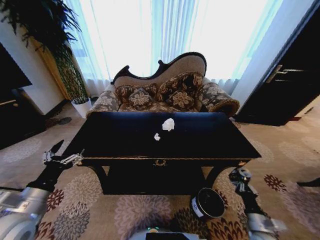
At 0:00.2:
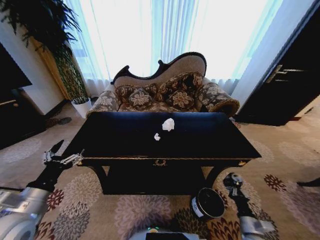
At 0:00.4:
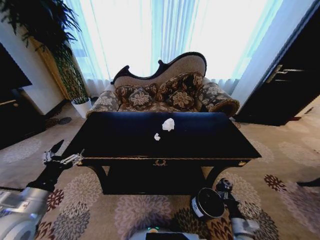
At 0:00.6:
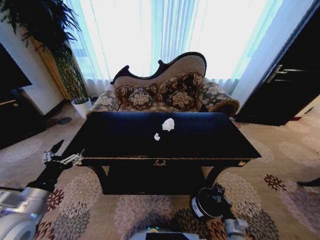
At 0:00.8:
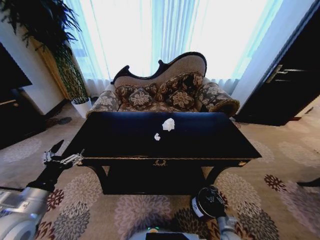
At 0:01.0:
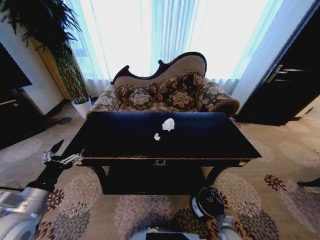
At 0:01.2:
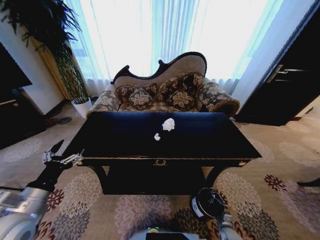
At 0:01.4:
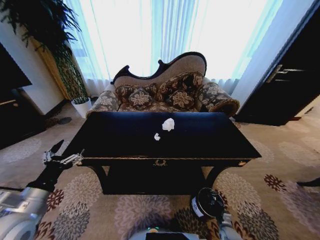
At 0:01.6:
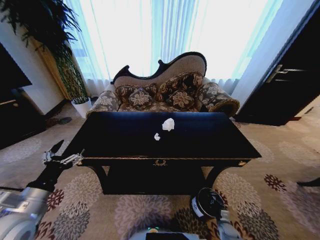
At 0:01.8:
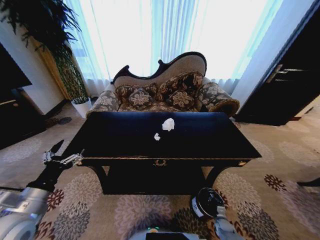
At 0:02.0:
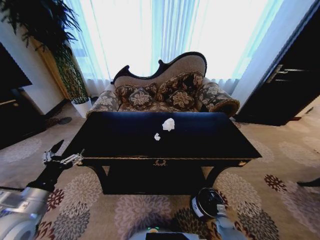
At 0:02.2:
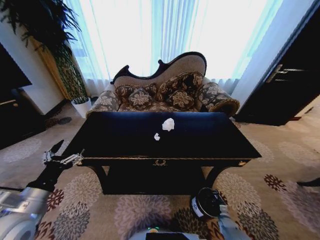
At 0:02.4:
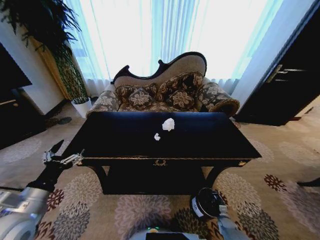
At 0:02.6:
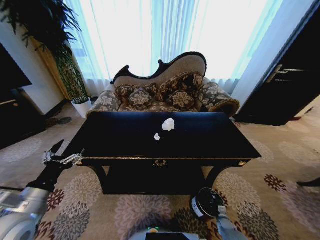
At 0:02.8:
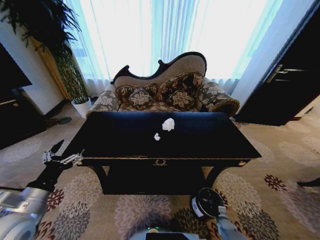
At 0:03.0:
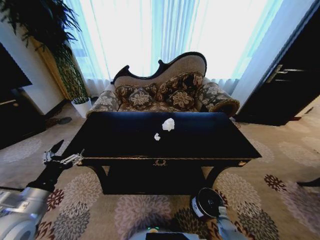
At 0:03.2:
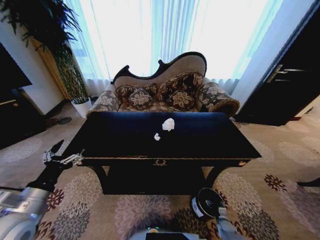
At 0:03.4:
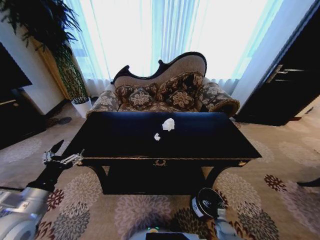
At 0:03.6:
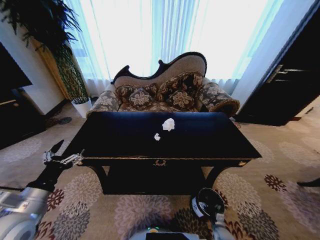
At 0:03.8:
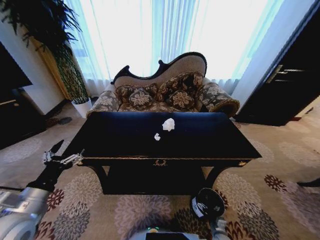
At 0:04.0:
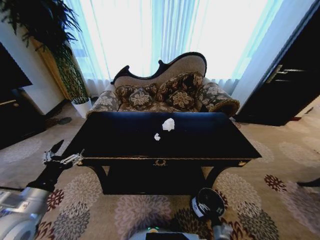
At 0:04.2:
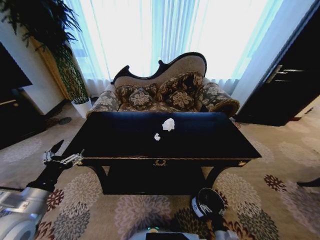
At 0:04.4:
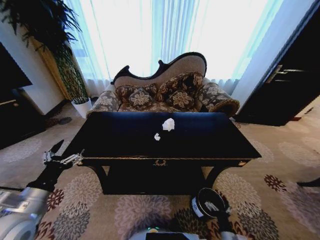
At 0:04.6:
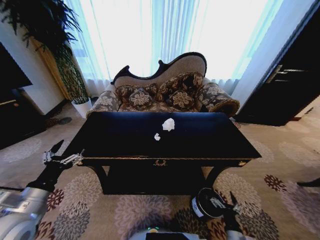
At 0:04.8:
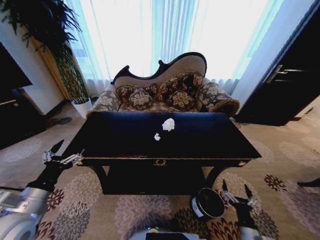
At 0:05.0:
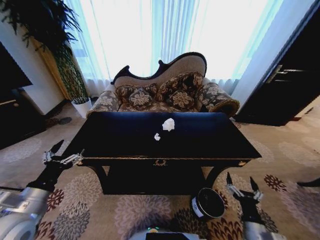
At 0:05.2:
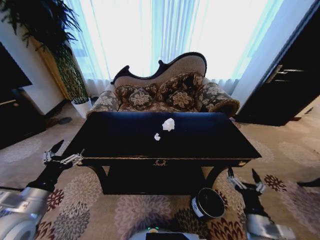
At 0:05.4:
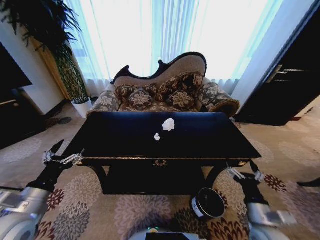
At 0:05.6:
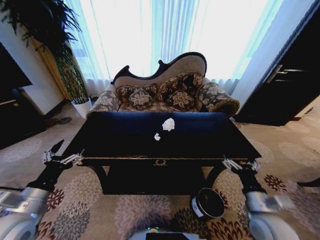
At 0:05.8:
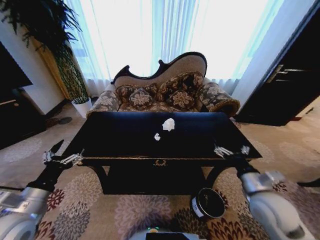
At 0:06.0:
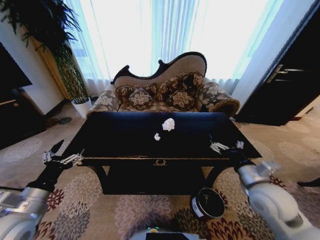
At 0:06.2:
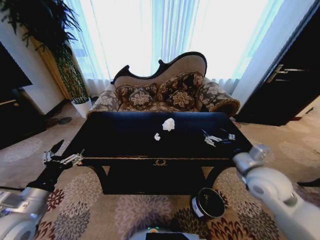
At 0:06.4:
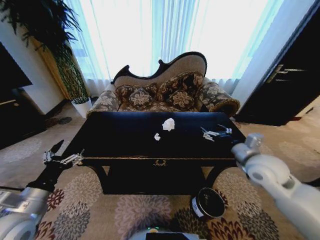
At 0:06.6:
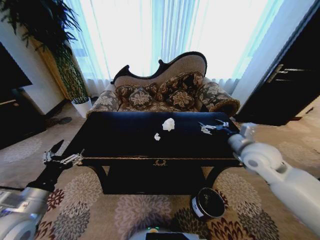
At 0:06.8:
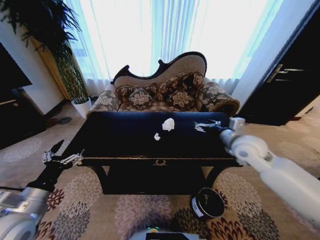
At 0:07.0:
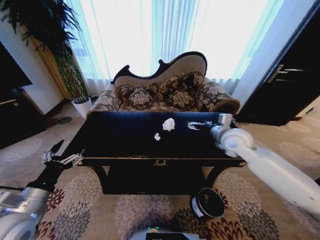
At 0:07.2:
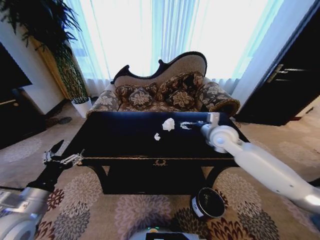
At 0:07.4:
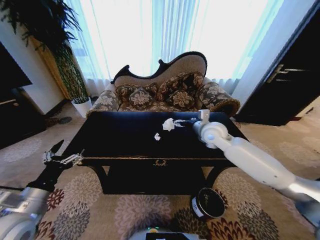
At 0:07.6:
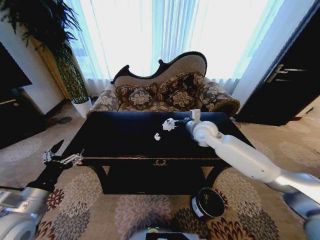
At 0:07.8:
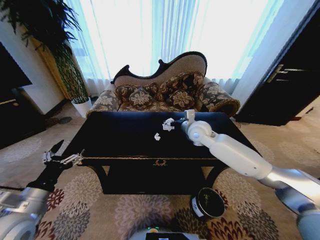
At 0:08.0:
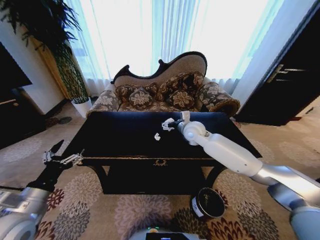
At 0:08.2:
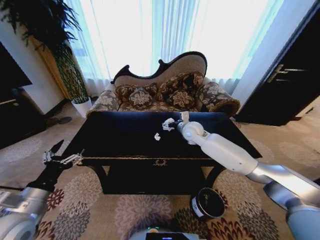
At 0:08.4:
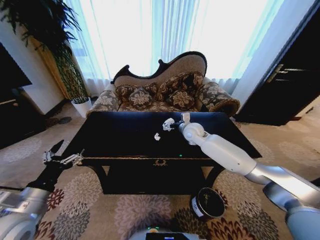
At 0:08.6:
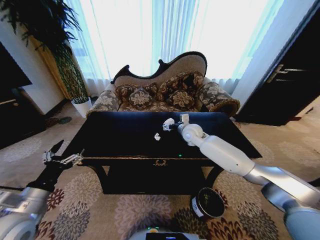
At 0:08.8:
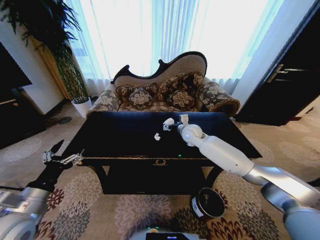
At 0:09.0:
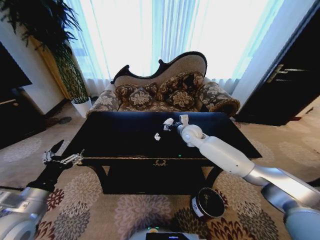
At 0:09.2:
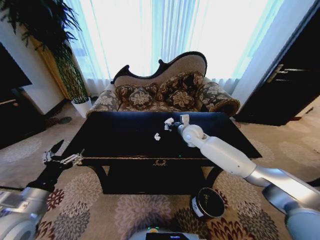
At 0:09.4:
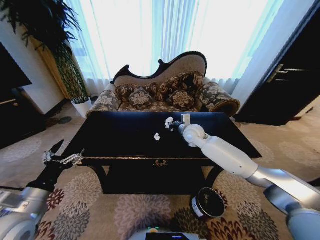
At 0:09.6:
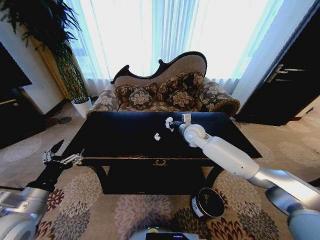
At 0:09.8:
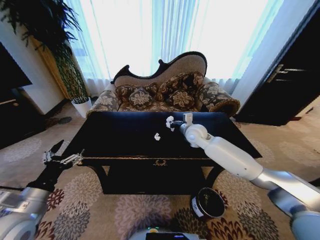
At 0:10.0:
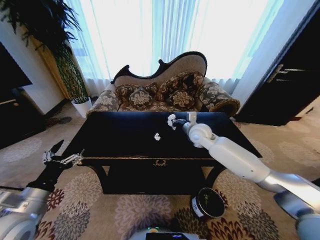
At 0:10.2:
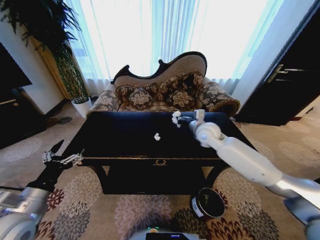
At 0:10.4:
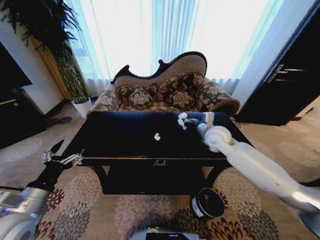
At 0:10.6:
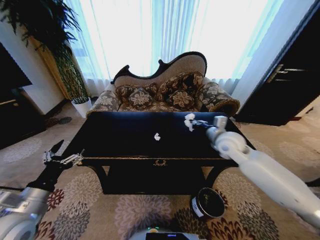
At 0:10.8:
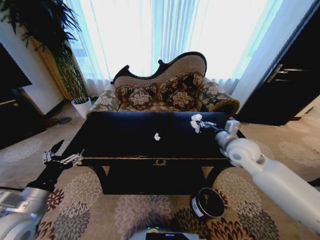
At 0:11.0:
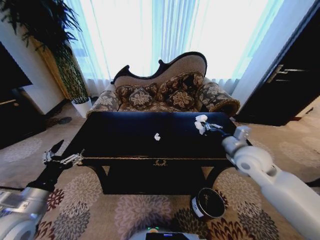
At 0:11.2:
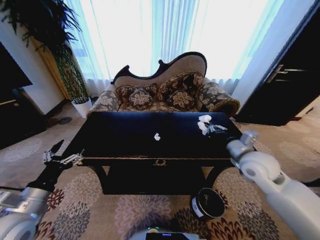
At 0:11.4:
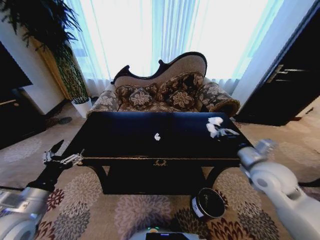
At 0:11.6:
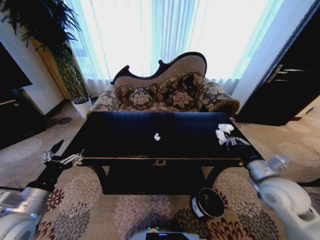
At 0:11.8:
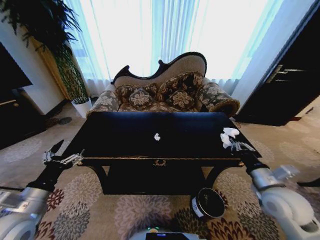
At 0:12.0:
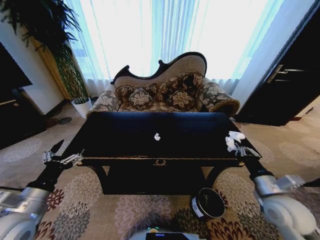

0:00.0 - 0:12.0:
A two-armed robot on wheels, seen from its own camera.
Task of the whole recording: Move to the front of the table and place the trash on the table into the trash bin.
0:00.0 - 0:01.6: The right gripper moves downward, roughly 25 cm.
0:03.0 - 0:04.4: The right gripper moves upward, backward and to the left, roughly 20 cm, and opens its fingers.
0:04.4 - 0:06.0: The right gripper is displaced upward and forward by about 35 cm.
0:06.0 - 0:07.6: The right gripper goes some 25 cm forward and to the left.
0:07.6 - 0:09.0: The right gripper goes approximately 5 cm downward, and closes.
0:09.0 - 0:10.4: The right gripper moves to the right and backward, some 10 cm, and closes its fingers.
0:10.4 - 0:12.0: The right gripper travels backward and to the right by approximately 25 cm.

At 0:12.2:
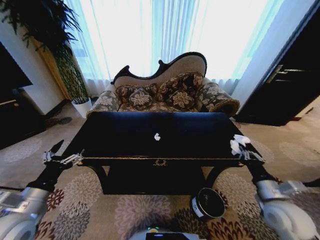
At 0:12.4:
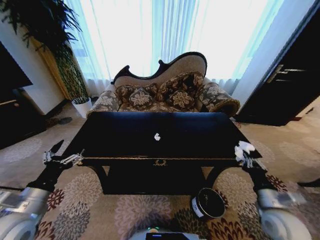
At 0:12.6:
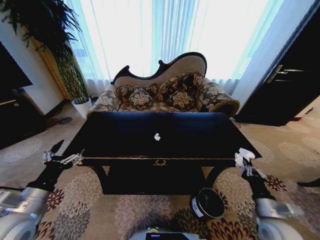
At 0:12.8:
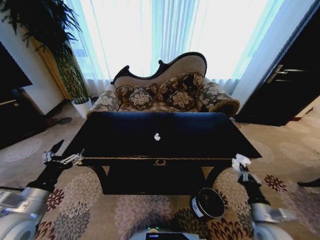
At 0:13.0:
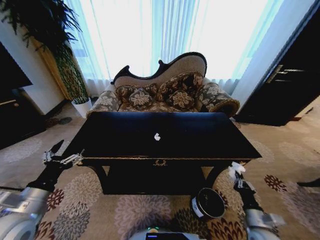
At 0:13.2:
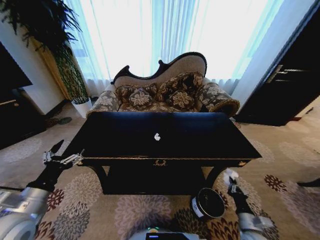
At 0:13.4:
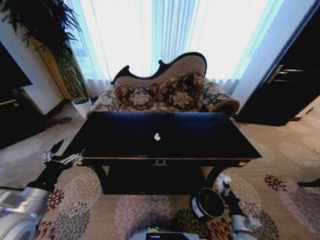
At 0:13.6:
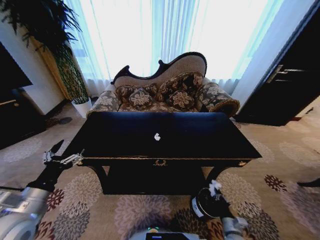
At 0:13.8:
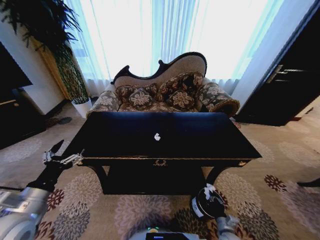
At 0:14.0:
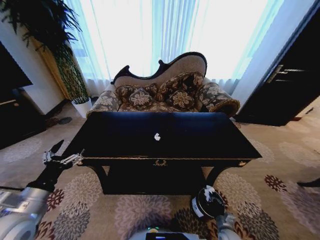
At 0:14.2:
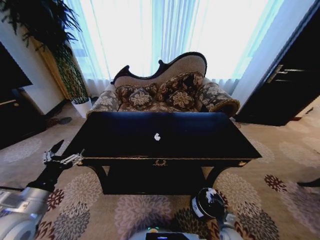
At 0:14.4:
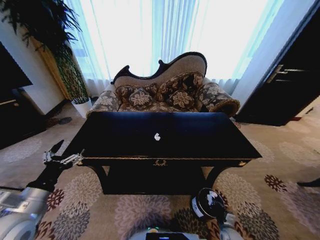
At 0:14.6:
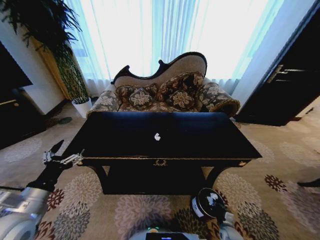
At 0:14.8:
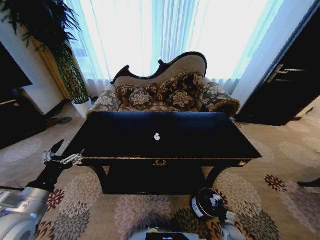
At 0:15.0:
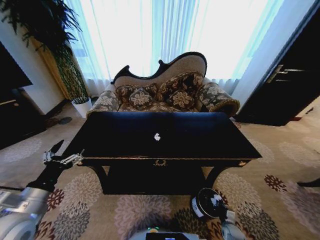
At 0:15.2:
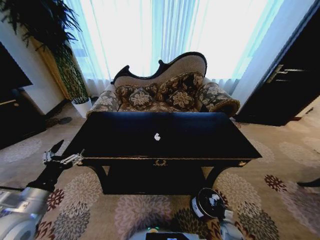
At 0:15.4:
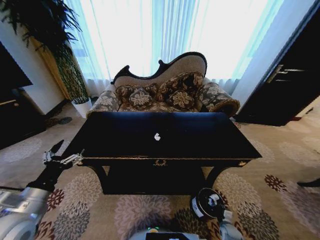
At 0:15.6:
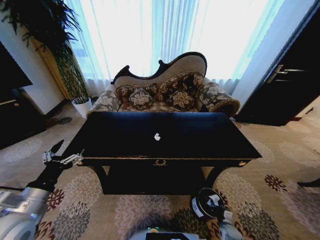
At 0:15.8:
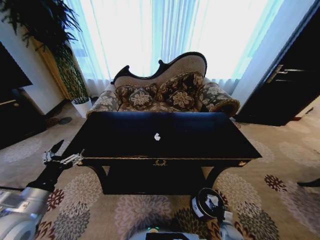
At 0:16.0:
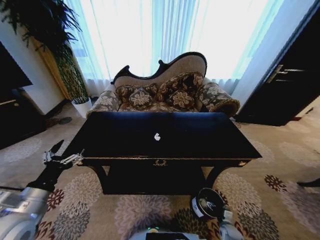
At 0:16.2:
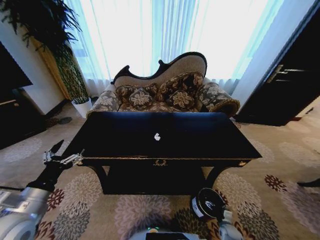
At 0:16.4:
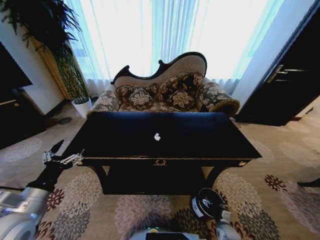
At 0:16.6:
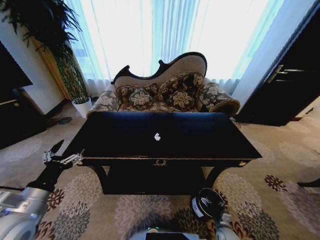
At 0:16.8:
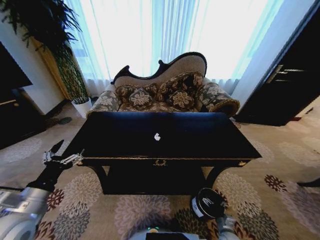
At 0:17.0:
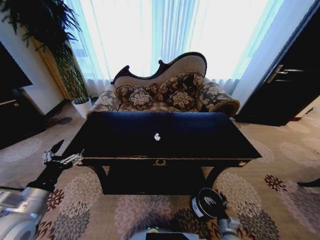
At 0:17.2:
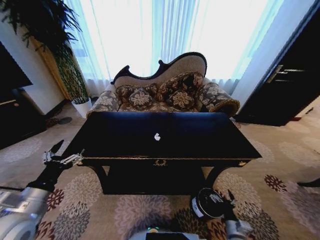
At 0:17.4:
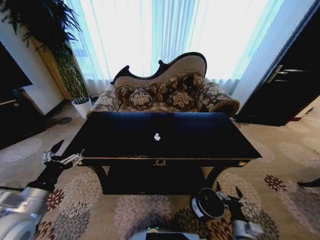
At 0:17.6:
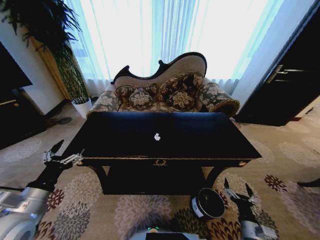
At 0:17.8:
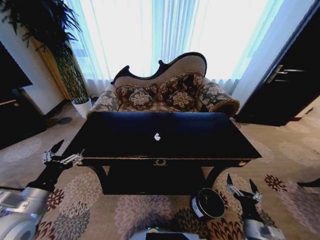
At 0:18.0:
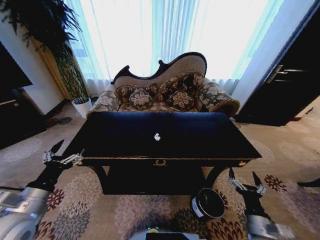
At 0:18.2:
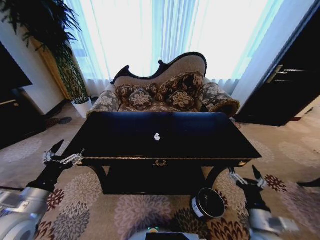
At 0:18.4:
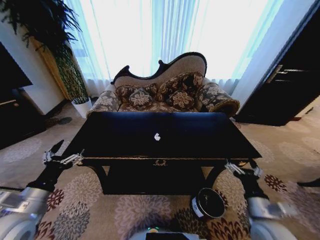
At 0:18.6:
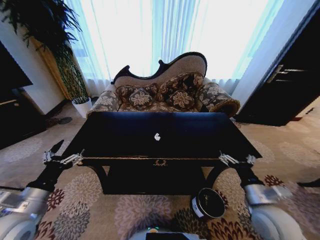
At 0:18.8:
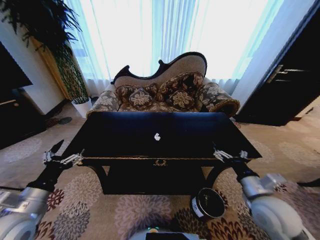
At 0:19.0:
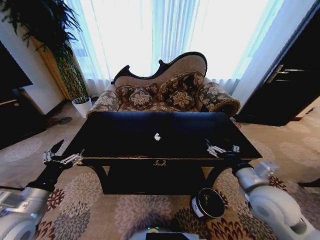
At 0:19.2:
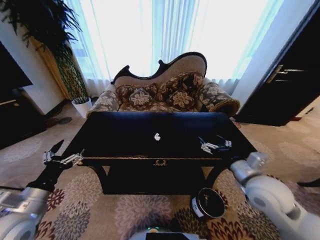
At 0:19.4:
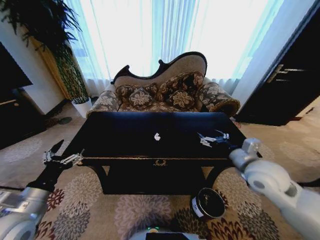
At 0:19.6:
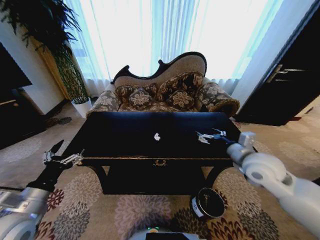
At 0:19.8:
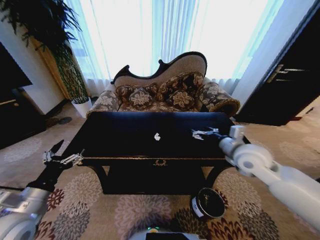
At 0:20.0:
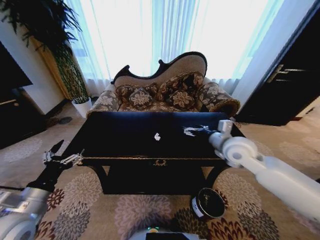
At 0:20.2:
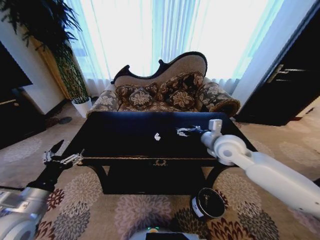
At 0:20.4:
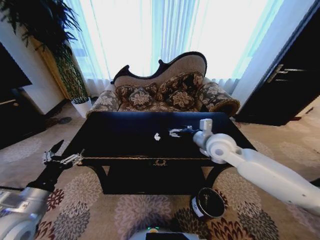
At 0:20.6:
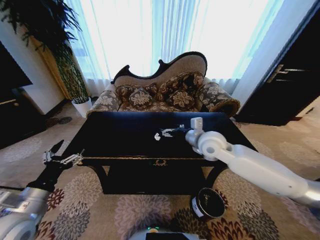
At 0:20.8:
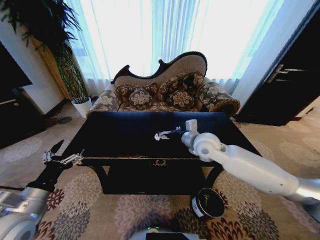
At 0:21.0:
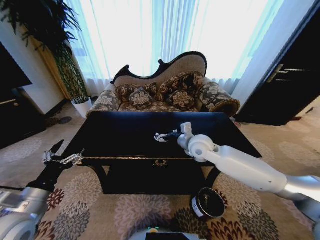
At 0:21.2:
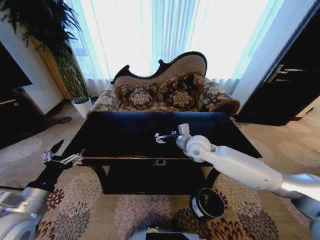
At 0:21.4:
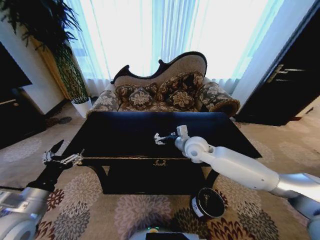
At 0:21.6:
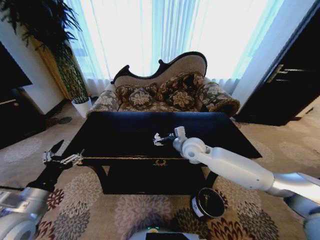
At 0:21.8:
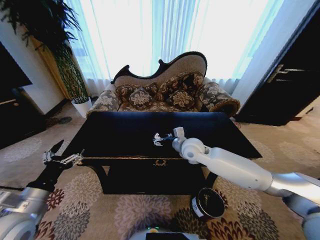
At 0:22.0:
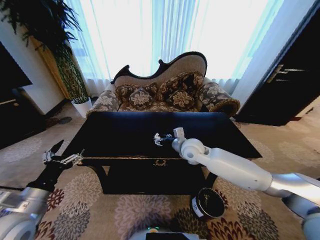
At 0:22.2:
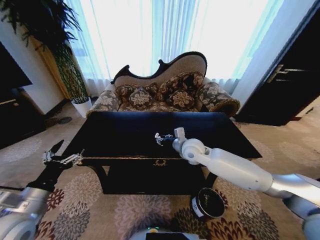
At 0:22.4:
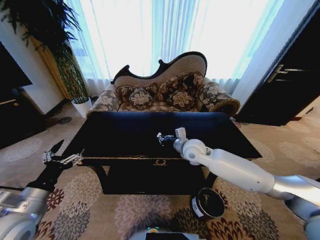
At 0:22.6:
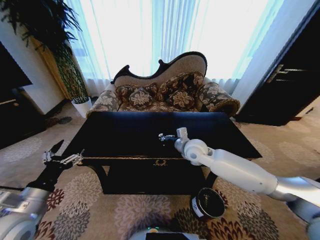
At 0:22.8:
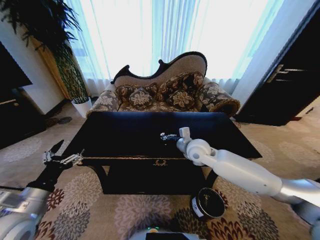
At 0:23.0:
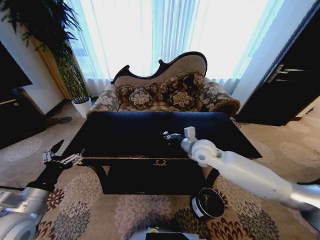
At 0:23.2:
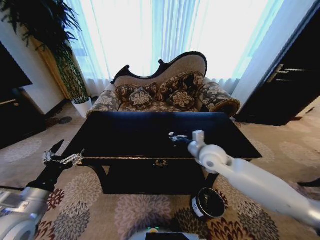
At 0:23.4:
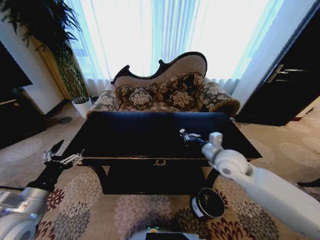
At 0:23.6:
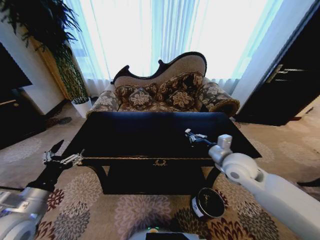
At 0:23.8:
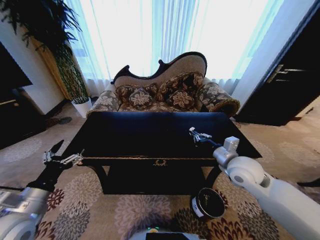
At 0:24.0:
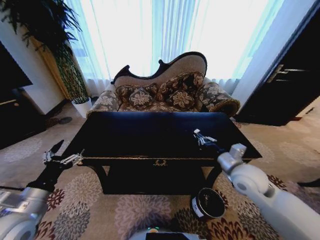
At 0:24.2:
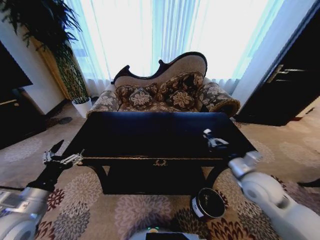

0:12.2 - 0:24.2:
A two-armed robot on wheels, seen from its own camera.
Task of the whole recording: Move to the front of the table and place the trash on the table into the trash bin.
0:12.2 - 0:13.8: The right gripper moves downward, about 30 cm.
0:13.8 - 0:15.2: The right gripper moves downward and to the right, some 10 cm.
0:15.2 - 0:16.6: The right gripper changes place by approximately 5 cm, and opens.
0:16.6 - 0:18.2: The right gripper travels upward by roughly 25 cm.
0:18.2 - 0:19.8: The right gripper is displaced forward and upward by roughly 30 cm.
0:19.8 - 0:21.2: The right gripper moves to the left and forward, some 15 cm.
0:21.2 - 0:22.6: The right gripper closes up.
0:22.6 - 0:24.2: The right gripper travels to the right and backward by approximately 25 cm.
